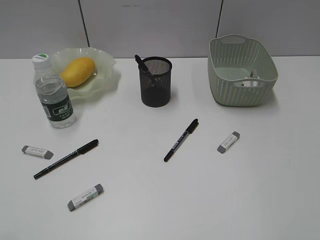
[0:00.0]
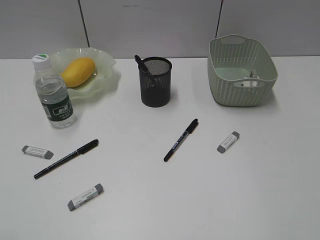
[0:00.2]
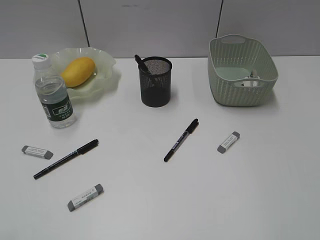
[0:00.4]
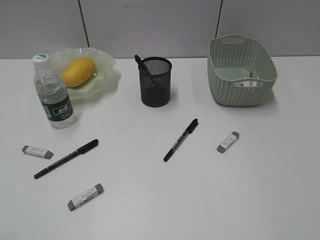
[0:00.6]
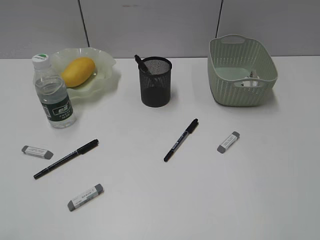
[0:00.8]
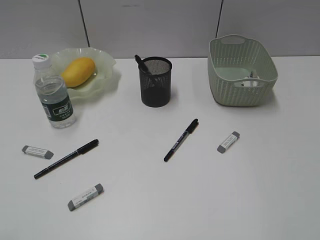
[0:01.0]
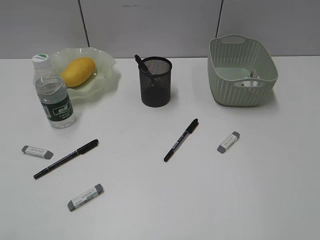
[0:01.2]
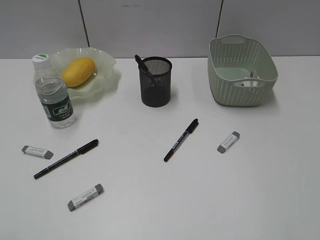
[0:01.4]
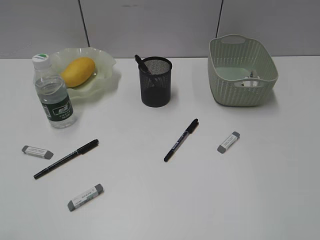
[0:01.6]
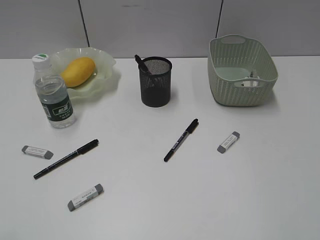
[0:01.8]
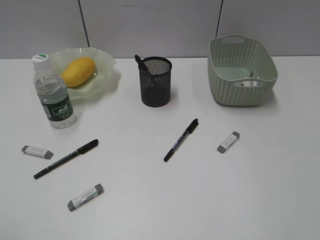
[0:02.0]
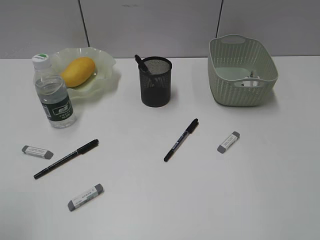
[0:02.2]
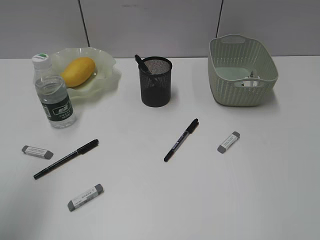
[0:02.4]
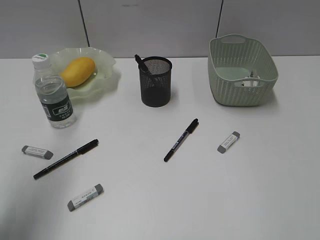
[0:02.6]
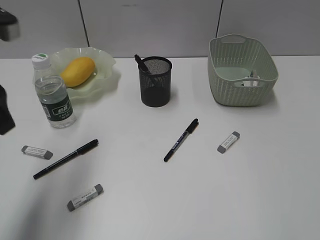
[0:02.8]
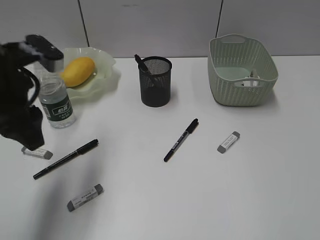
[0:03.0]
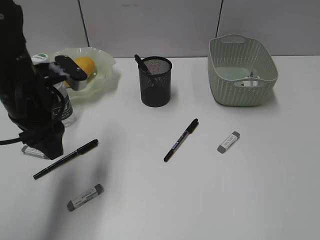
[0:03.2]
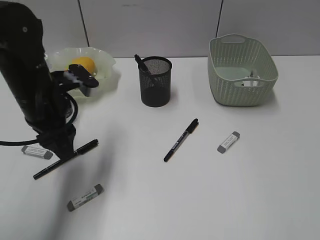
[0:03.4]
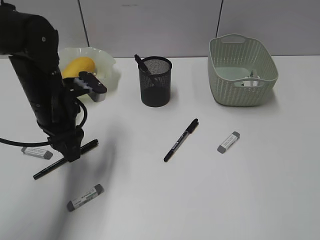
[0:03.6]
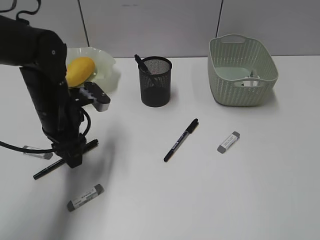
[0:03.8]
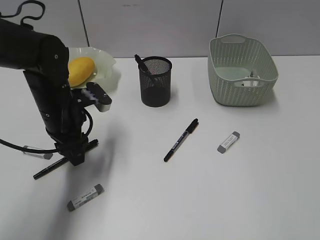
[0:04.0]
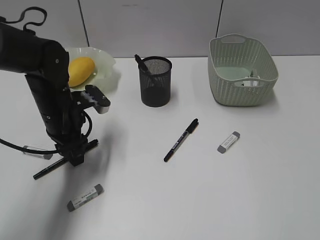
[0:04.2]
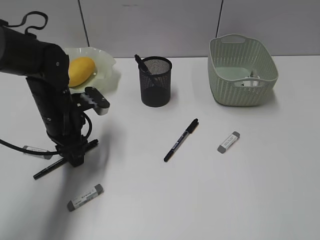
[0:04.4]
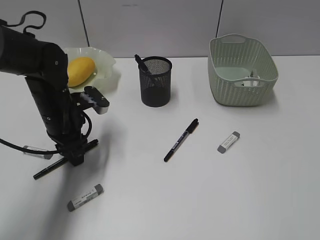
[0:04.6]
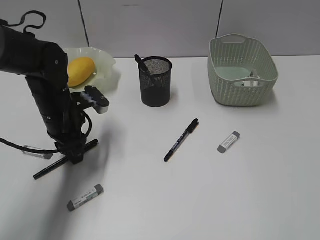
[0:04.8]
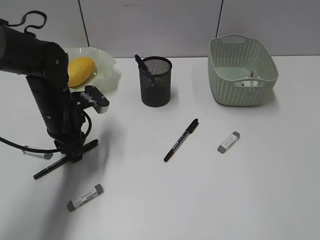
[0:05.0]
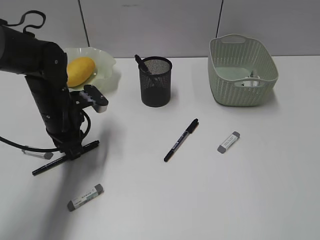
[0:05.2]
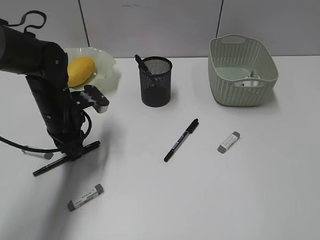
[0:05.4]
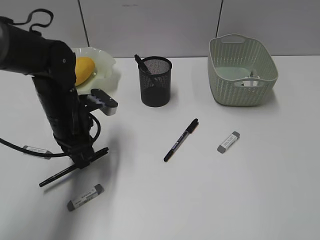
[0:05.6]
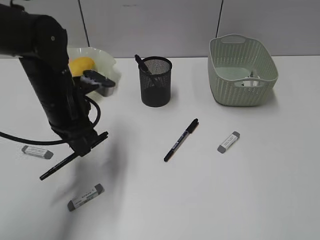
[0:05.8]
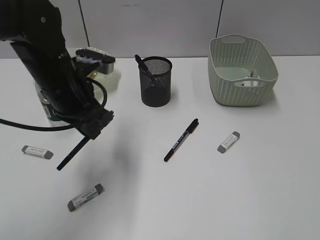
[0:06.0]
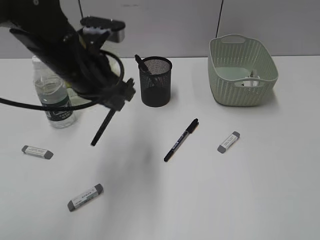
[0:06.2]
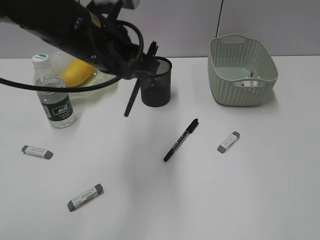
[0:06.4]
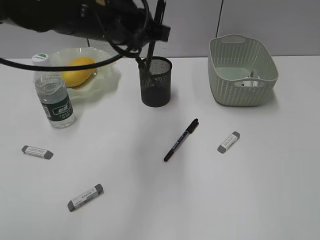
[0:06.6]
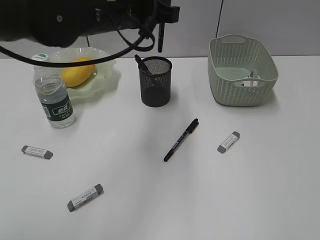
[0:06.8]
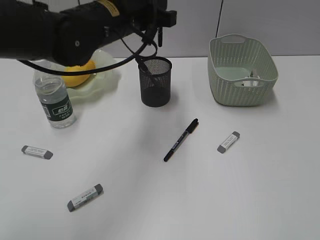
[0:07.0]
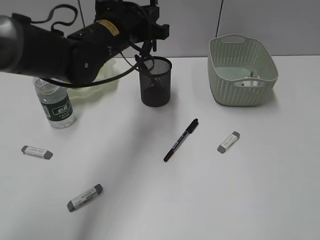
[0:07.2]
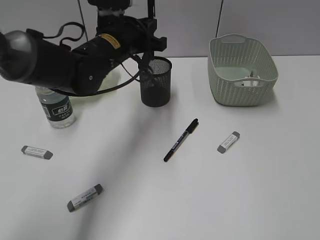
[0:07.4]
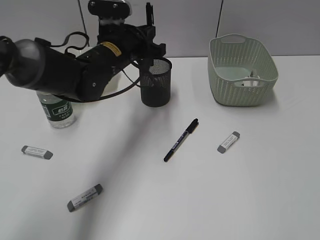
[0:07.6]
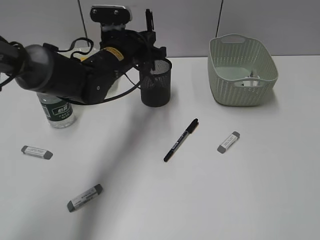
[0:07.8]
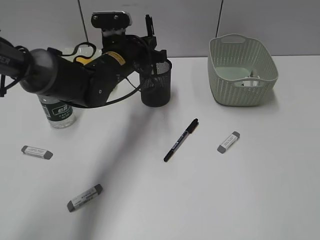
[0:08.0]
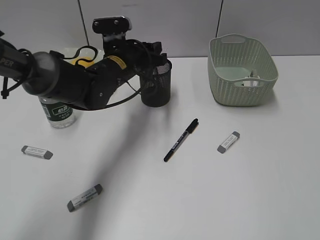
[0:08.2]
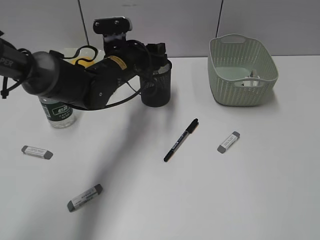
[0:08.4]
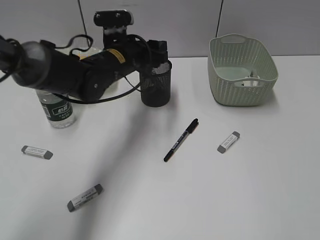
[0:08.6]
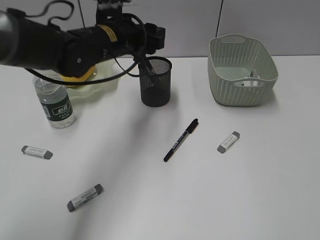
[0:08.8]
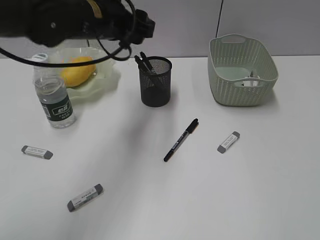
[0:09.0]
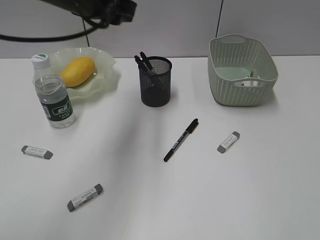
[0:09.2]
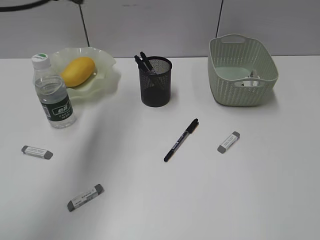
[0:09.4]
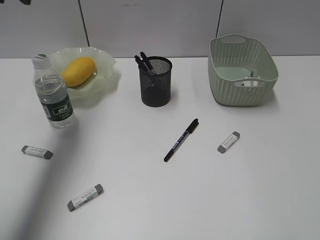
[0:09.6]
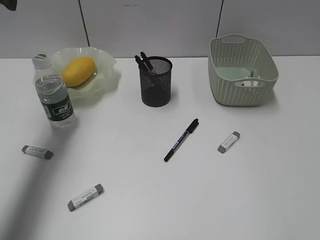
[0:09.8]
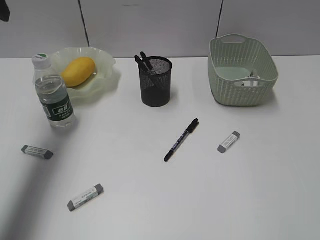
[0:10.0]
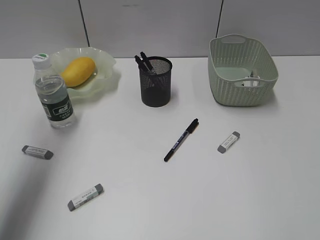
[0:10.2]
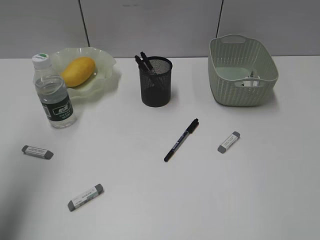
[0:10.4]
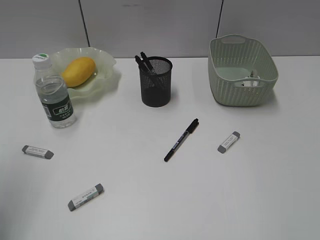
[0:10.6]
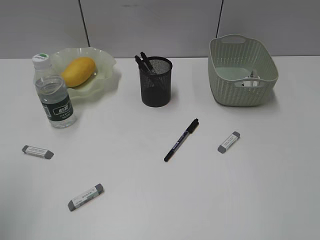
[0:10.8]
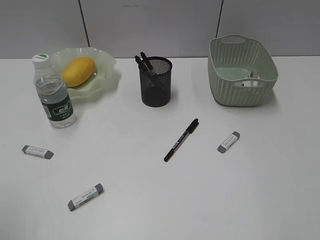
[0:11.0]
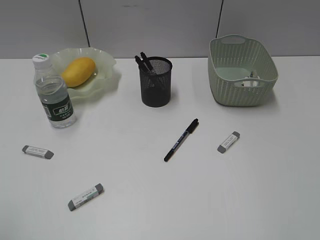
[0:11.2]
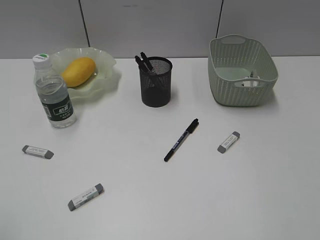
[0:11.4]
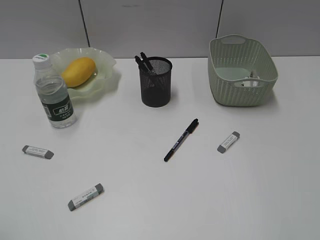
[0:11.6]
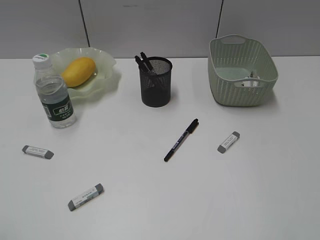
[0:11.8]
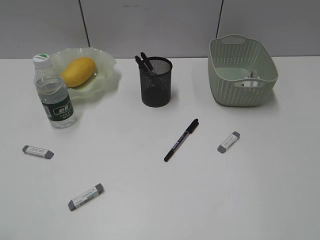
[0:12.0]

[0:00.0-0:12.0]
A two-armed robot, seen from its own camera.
Step, 0:00.0 to 0:05.4: Grasp the black pen with left gripper.
Step, 0:05.6 to 0:08.6: Place the black pen in pen holder with left gripper.
0:01.6 to 0:03.0: The left gripper shifts some 30 cm forward and to the right.
0:03.0 to 0:04.4: The left gripper heads downward and forward, covering approximately 15 cm.
0:04.4 to 0:06.0: The left gripper is displaced upward by about 5 cm, and closes up.
0:06.0 to 0:07.6: The left gripper shifts roughly 10 cm forward and to the right, and moves about 10 cm upward and comes back.
0:07.6 to 0:09.0: The left gripper is displaced upward by roughly 5 cm, and opens.
0:09.0 to 0:10.4: The left gripper travels to the left, backward and upward by some 25 cm.
0:10.4 to 0:12.0: The left gripper moves backward, approximately 25 cm.

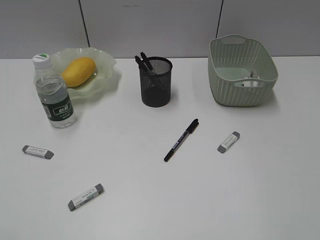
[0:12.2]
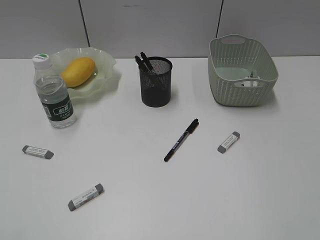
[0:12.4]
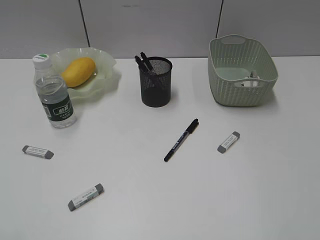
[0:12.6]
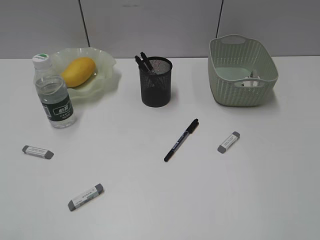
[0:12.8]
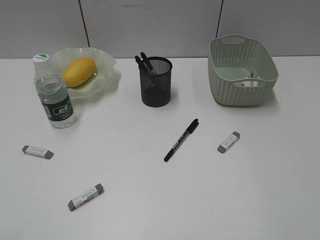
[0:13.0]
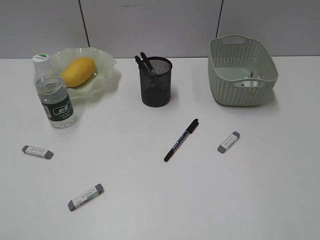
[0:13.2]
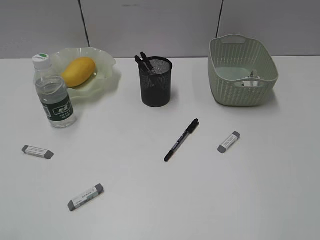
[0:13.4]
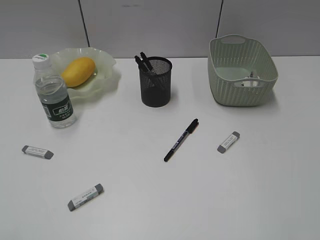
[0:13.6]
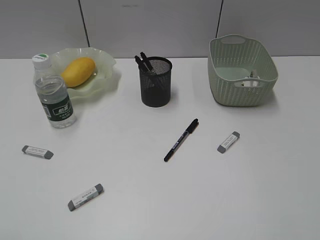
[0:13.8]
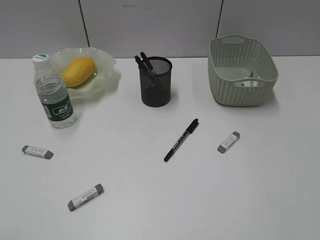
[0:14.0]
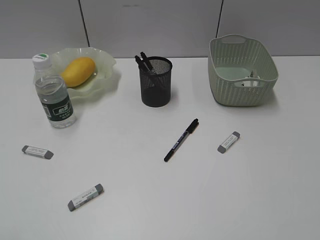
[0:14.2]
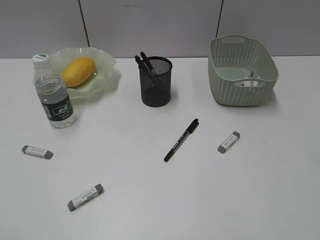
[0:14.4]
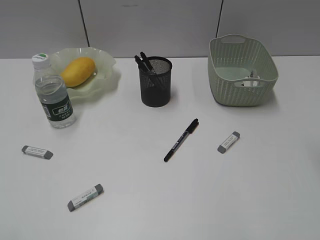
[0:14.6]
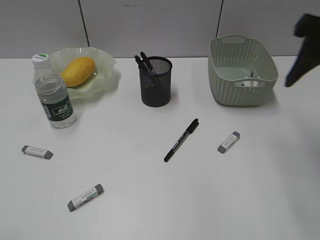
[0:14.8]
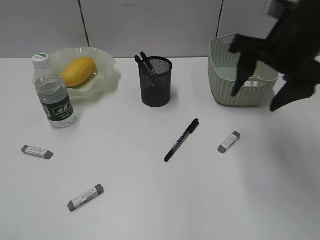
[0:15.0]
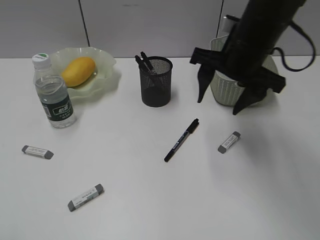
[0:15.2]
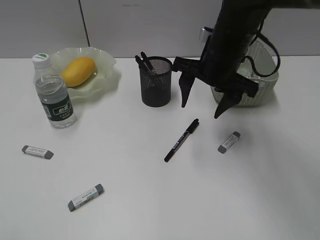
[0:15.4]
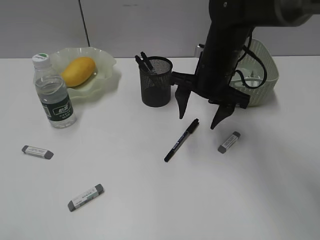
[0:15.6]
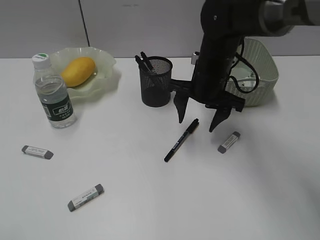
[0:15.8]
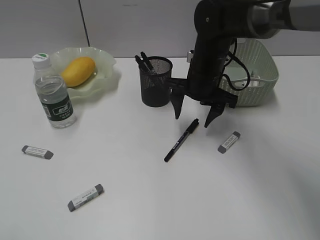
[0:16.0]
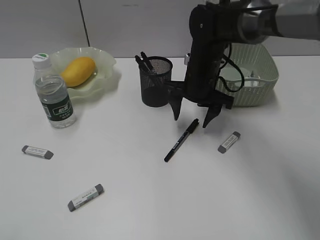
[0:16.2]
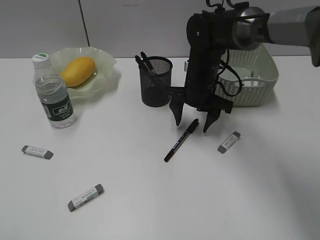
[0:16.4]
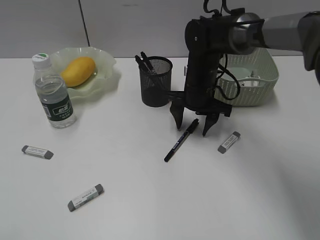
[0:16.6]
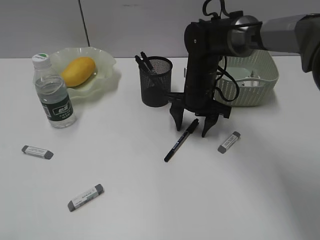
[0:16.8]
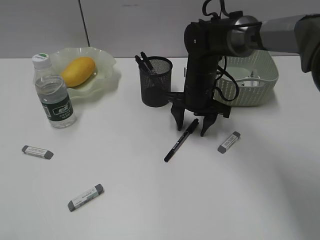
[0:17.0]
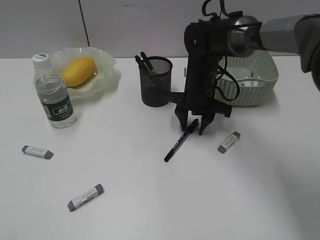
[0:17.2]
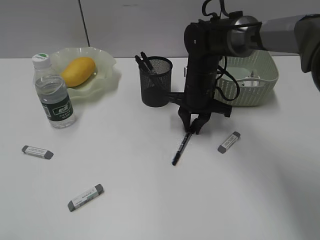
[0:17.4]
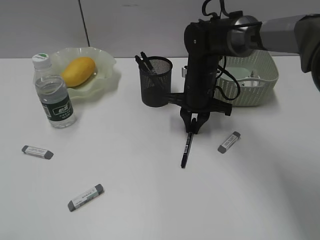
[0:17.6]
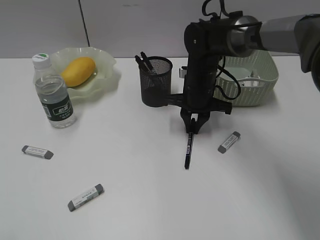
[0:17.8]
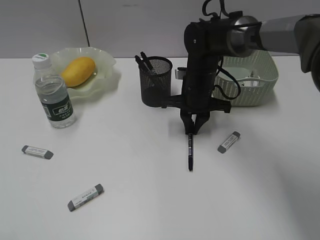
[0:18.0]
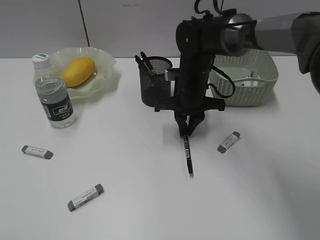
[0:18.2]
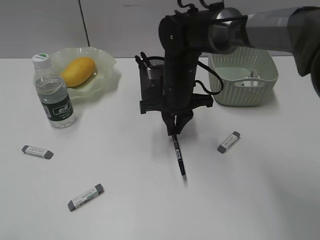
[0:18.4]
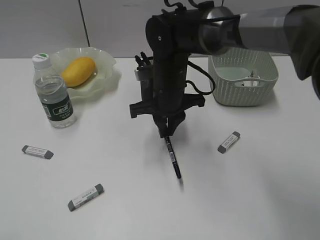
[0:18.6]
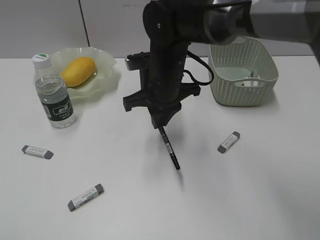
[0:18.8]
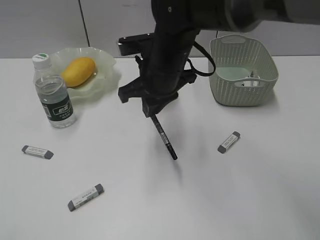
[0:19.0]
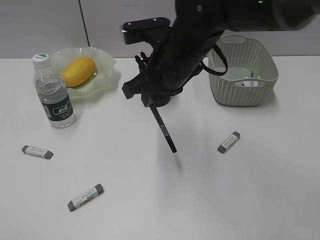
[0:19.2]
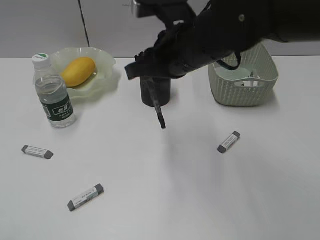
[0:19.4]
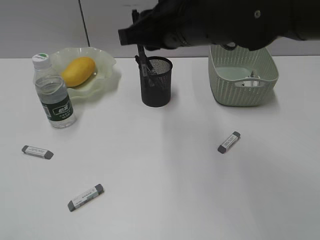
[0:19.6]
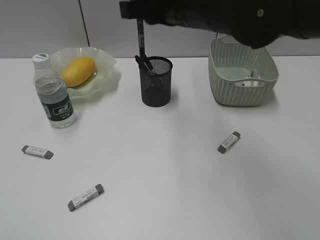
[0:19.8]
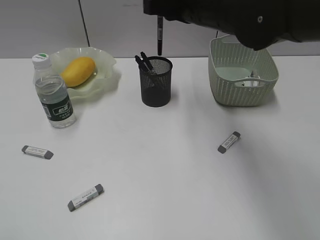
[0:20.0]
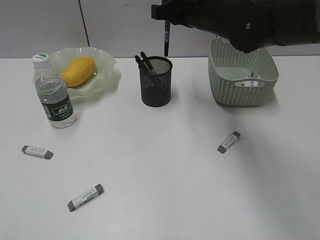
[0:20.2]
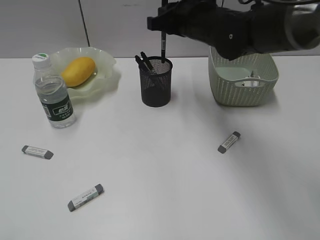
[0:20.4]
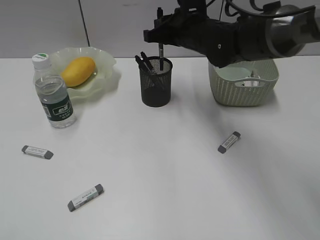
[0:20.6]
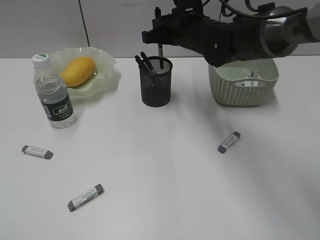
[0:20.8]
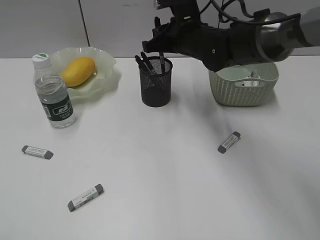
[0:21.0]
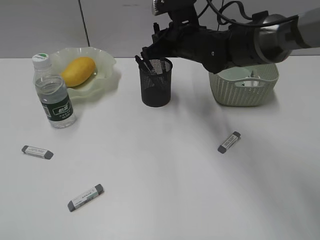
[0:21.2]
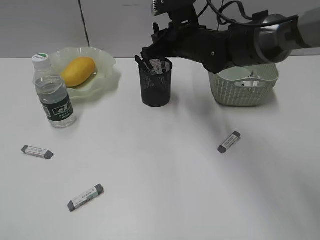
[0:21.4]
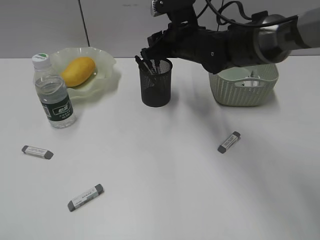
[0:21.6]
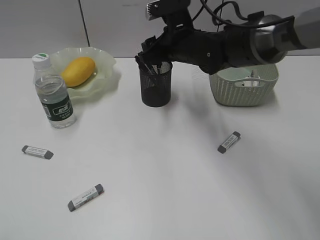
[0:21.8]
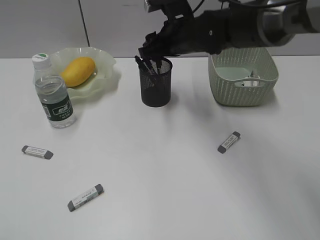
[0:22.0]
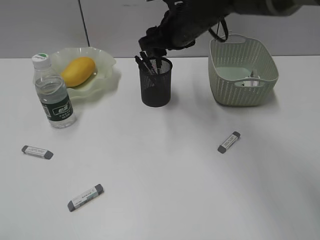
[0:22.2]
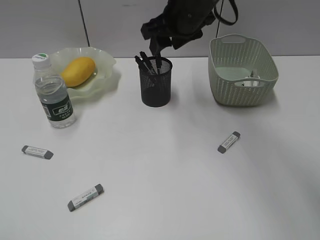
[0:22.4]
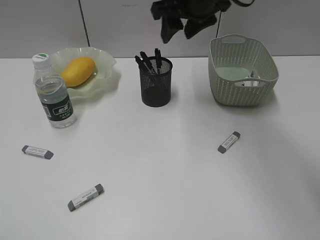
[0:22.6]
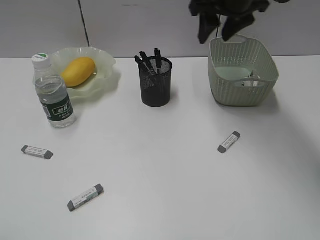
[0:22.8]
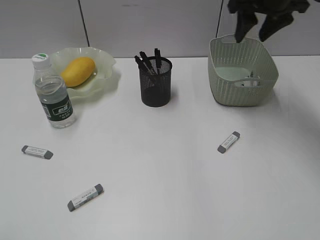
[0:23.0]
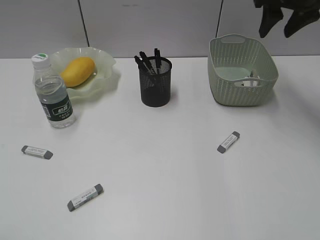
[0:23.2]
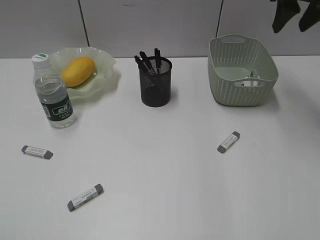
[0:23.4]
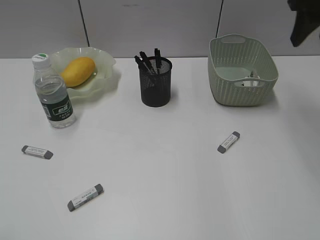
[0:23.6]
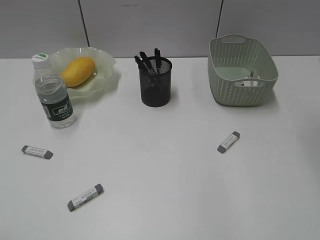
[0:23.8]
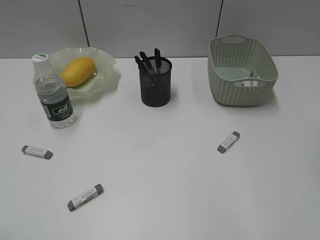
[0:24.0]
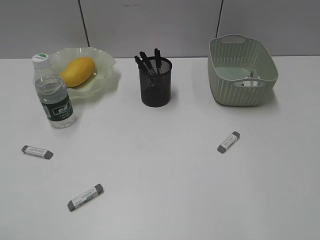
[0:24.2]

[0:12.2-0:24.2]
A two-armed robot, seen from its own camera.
Step, 0:12.2 to 0:18.0: Grasp the black pen with right gripper.
Step, 0:18.2 to 0:21.8: Place the black pen in pen holder with right gripper.
0:13.8 to 0:15.2: The right gripper travels forward and to the left by approximately 35 cm, and opens up.
0:15.2 to 0:16.6: The right gripper is displaced downward, forward and to the left by roughly 15 cm.
0:16.6 to 0:18.2: The right gripper closes its fingers.
0:18.2 to 0:19.8: The right gripper goes about 20 cm upward and backward.
0:19.8 to 0:21.2: The right gripper moves forward and downward, approximately 15 cm.
0:21.2 to 0:22.6: The right gripper moves upward, about 10 cm, and opens up.
0:22.6 to 0:24.2: The right gripper heads backward and to the right, covering roughly 30 cm.
